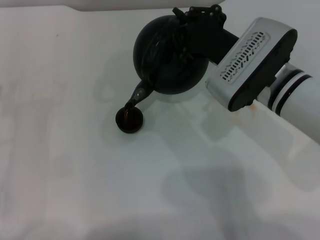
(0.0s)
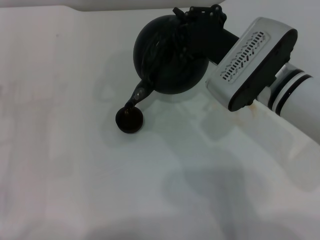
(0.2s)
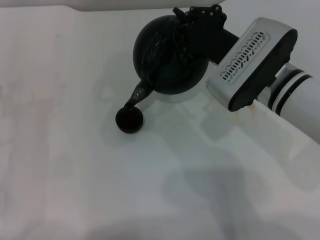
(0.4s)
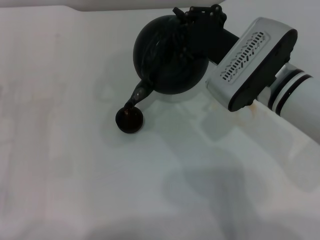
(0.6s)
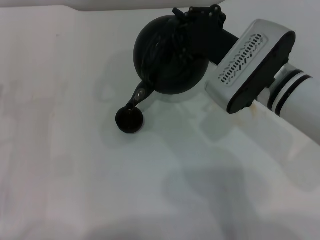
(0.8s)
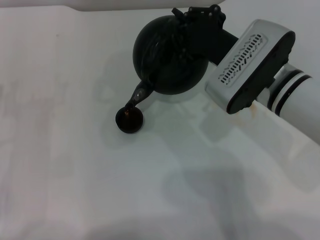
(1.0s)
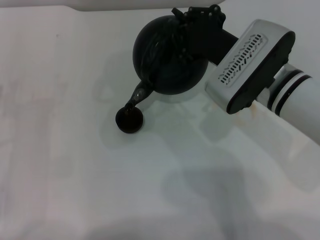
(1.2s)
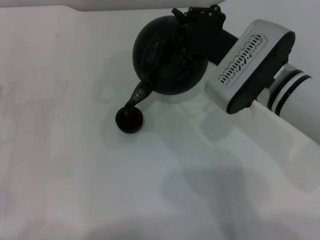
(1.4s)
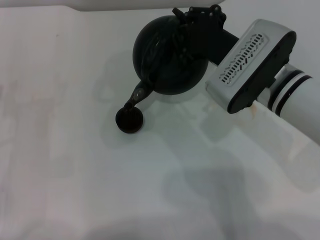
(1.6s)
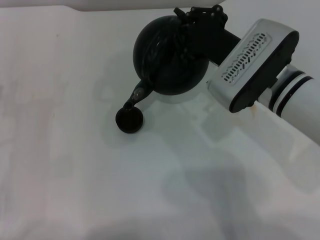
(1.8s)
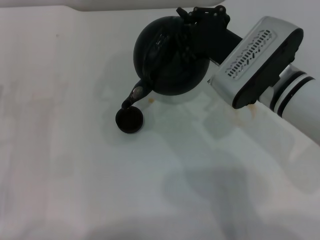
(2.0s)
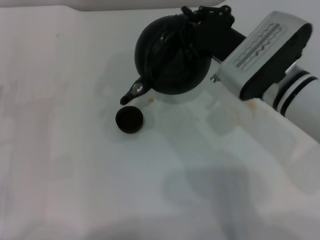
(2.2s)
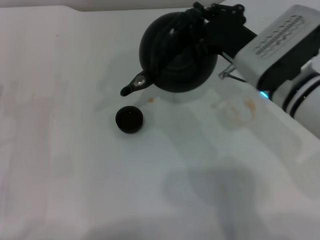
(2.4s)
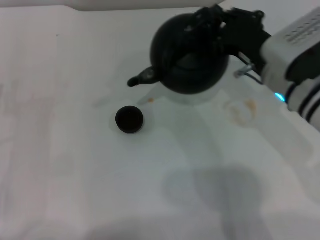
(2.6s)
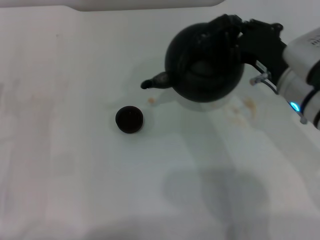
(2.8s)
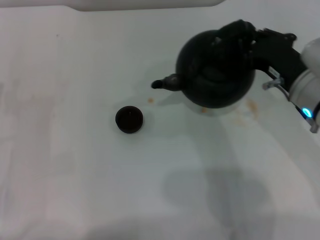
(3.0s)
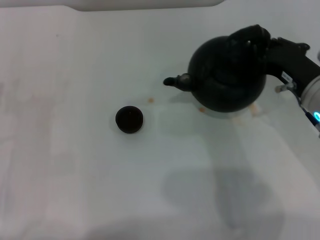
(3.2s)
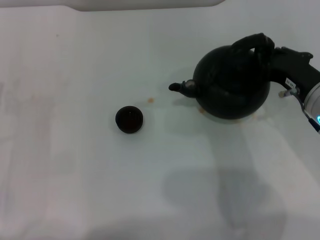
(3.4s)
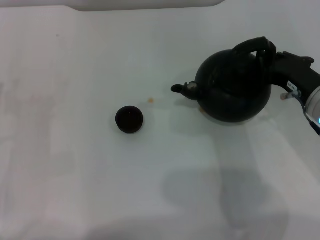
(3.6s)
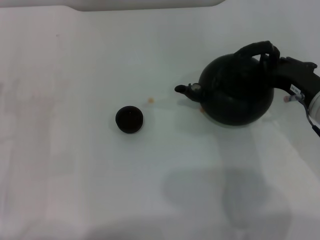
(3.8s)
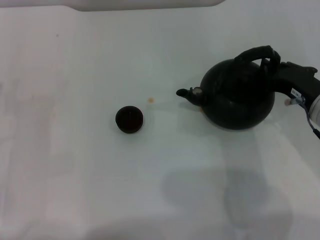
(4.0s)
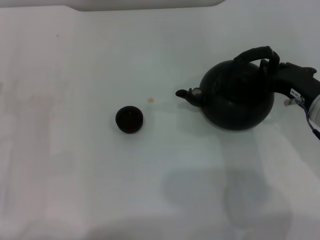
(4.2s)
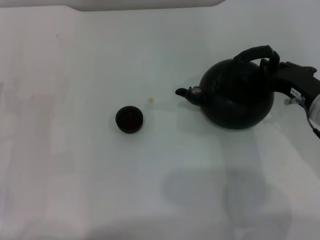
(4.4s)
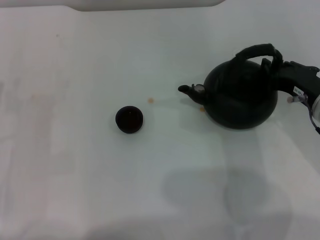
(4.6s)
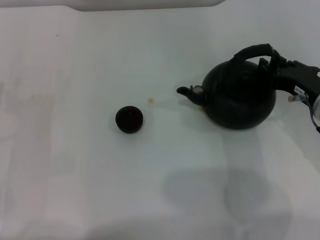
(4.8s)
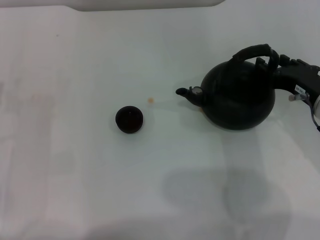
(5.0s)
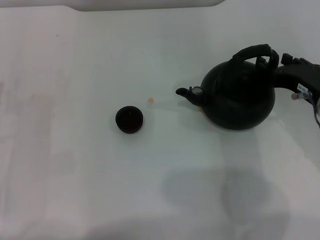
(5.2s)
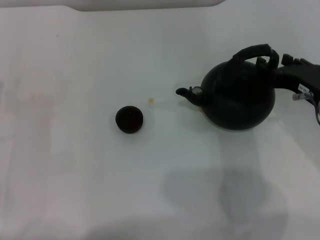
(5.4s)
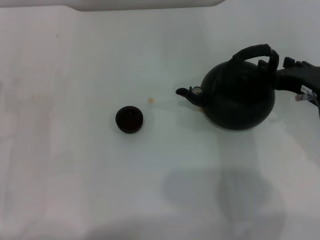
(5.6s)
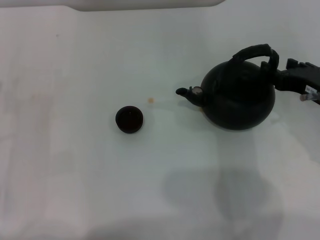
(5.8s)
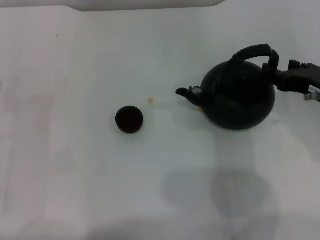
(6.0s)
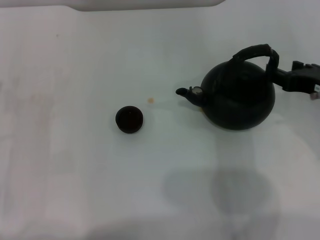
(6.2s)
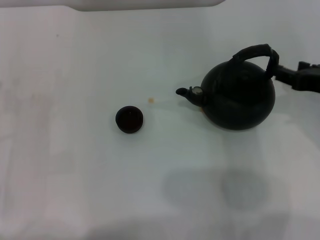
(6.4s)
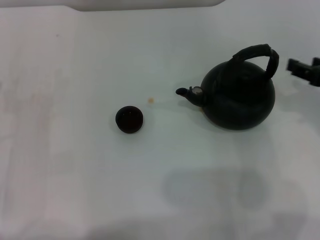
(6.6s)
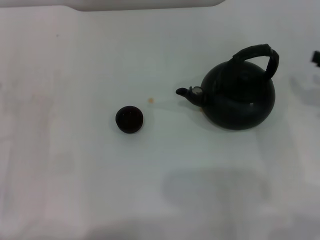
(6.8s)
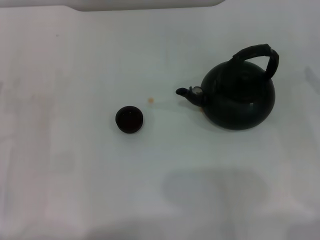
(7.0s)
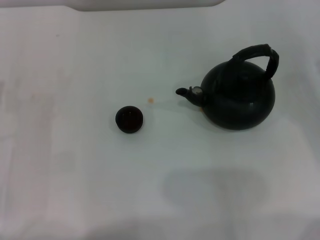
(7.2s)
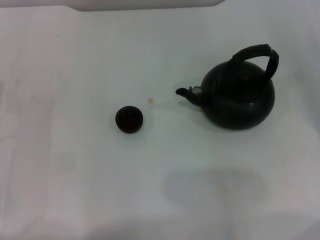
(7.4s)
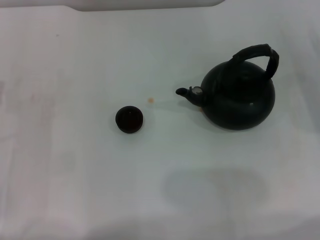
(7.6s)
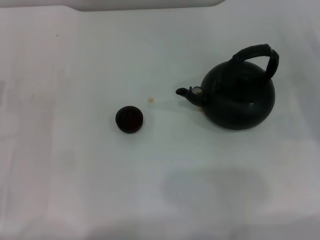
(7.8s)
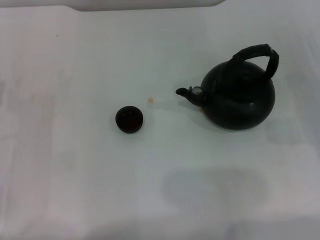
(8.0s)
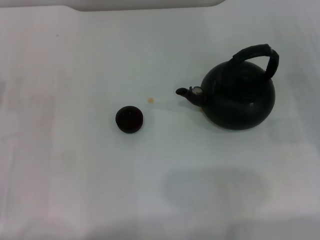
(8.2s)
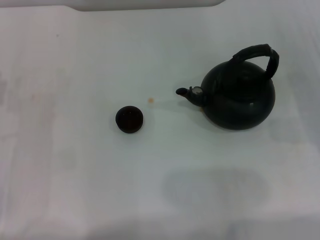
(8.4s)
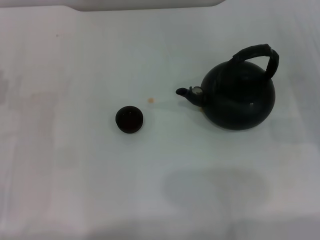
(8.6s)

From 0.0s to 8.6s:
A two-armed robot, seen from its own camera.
Task of the whole recording: Grasp the handle of the teapot with one hand and pour tea into the teacup.
Step, from 0.0s to 2.2s: Pour tea into the teacup with the right gripper.
Step, from 2.4s to 6.0s: Put down the teapot with the right gripper.
From 0.0s to 1.4s: Both grippers stay put.
From 1.4s to 2.8s: The right gripper shifts approximately 5 cm to the right.
From 2.8s to 4.4s: The right gripper moves approximately 5 cm.
From 4.4s to 5.8s: The right gripper opens its fingers.
From 5.8s to 7.2s: The right gripper heads to the right, covering approximately 15 cm.

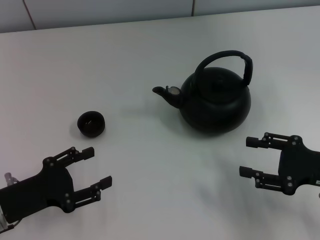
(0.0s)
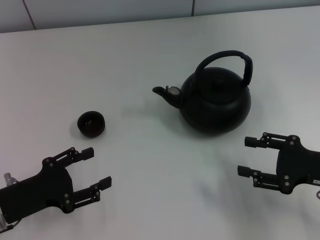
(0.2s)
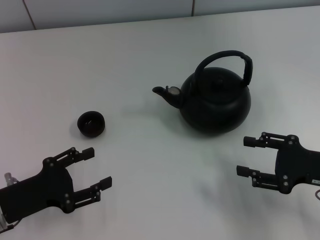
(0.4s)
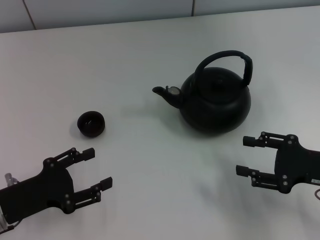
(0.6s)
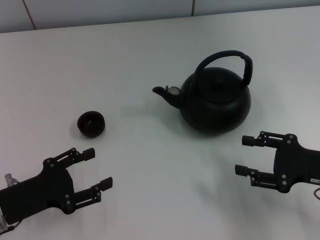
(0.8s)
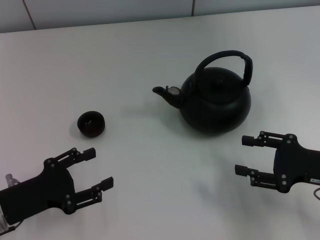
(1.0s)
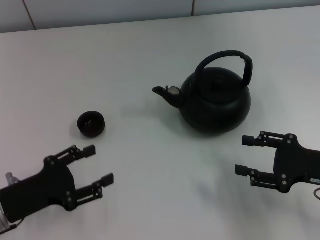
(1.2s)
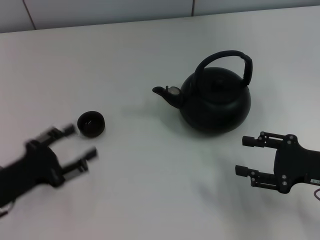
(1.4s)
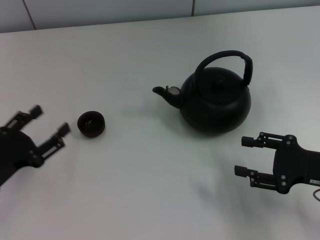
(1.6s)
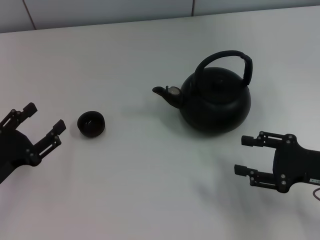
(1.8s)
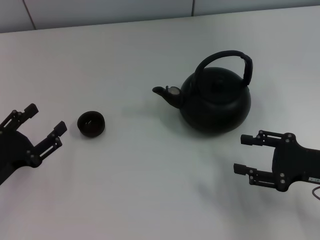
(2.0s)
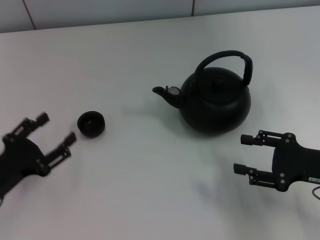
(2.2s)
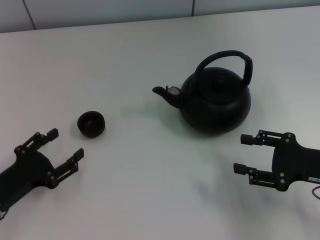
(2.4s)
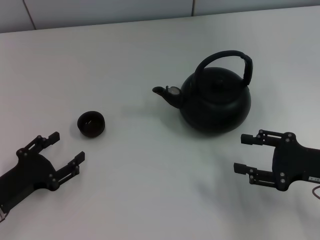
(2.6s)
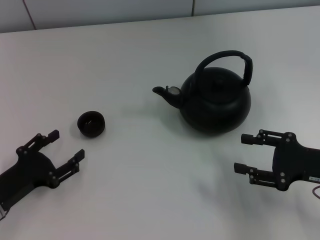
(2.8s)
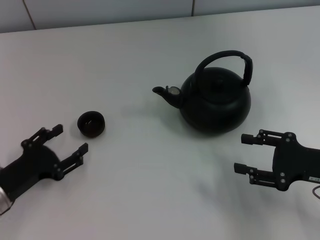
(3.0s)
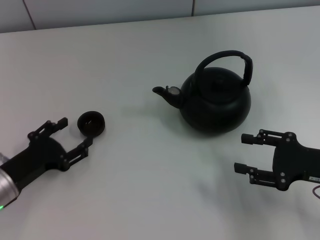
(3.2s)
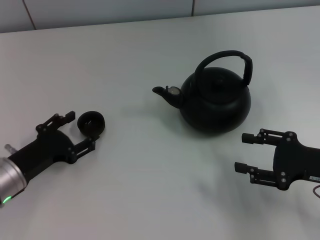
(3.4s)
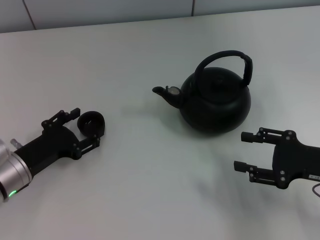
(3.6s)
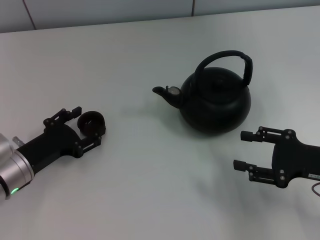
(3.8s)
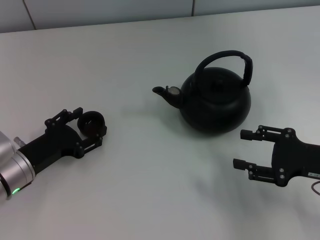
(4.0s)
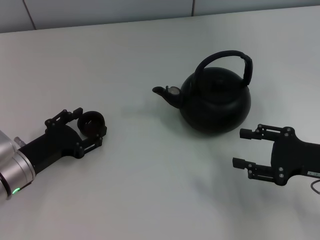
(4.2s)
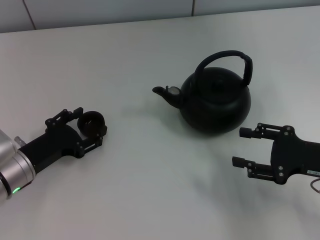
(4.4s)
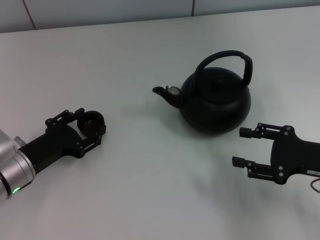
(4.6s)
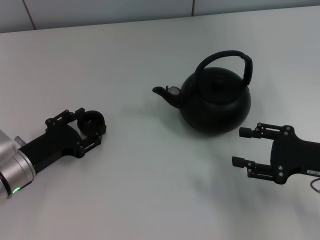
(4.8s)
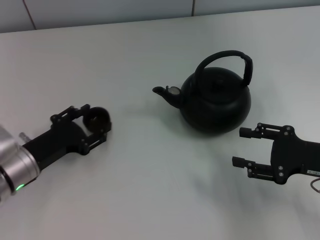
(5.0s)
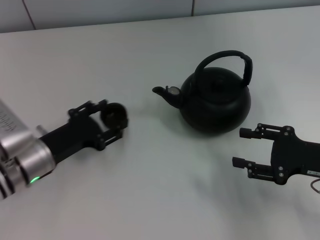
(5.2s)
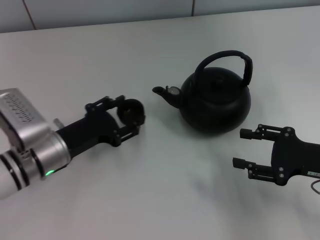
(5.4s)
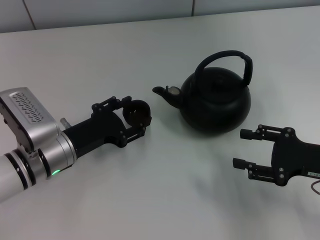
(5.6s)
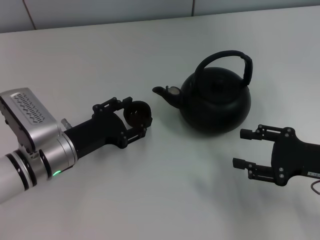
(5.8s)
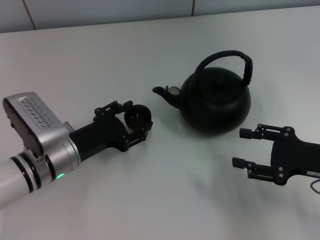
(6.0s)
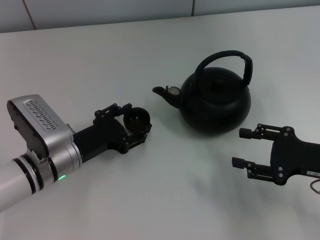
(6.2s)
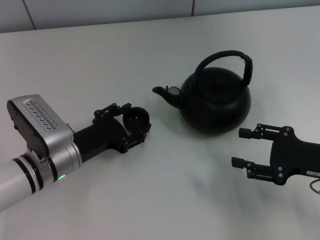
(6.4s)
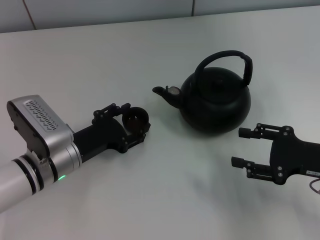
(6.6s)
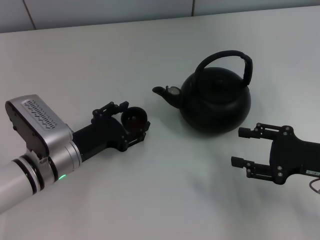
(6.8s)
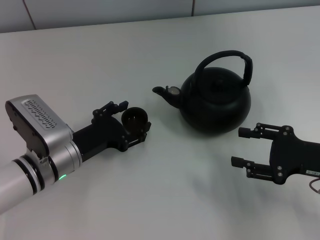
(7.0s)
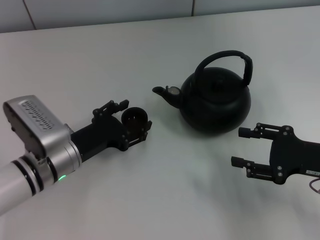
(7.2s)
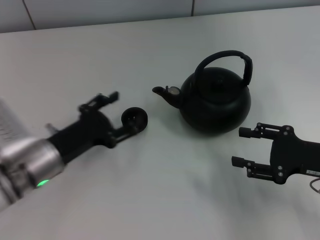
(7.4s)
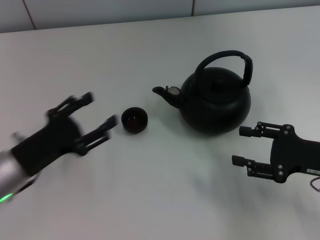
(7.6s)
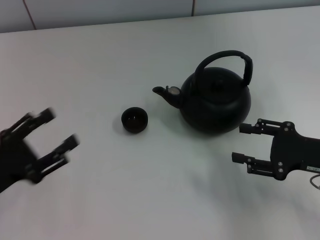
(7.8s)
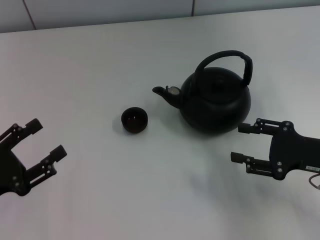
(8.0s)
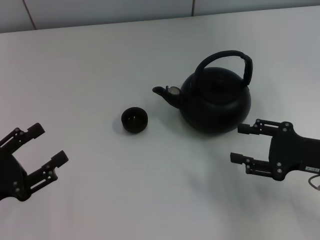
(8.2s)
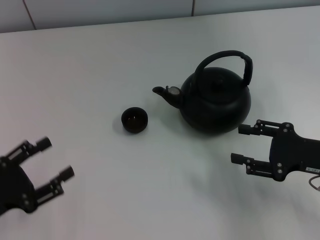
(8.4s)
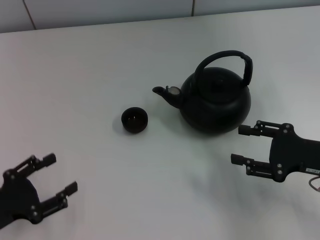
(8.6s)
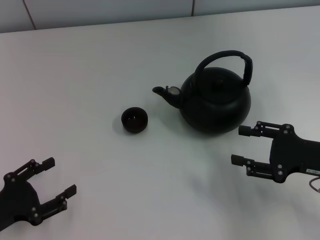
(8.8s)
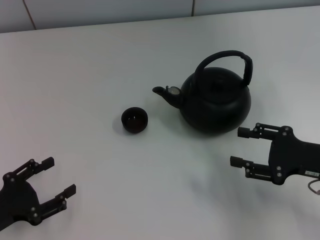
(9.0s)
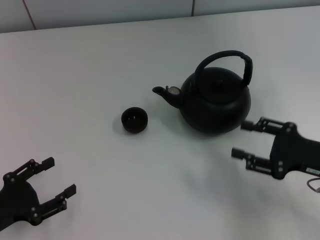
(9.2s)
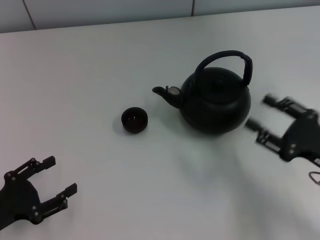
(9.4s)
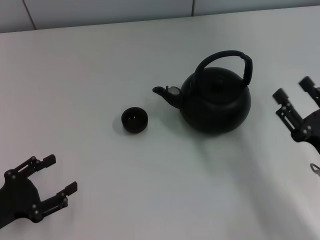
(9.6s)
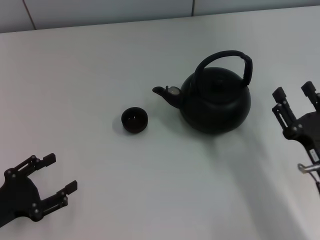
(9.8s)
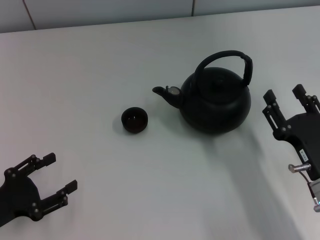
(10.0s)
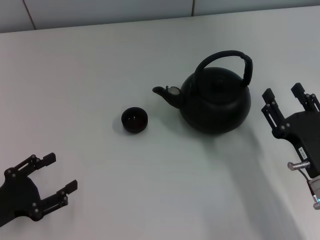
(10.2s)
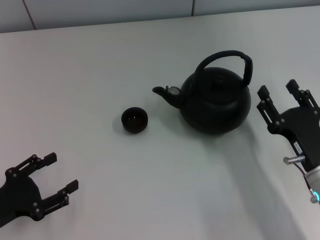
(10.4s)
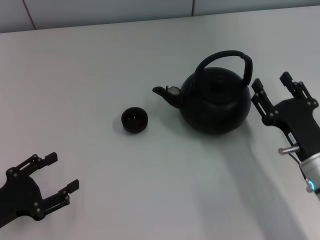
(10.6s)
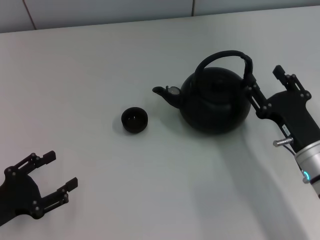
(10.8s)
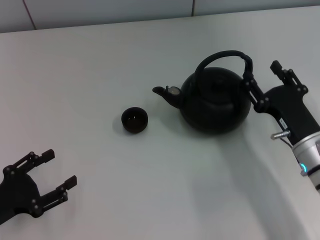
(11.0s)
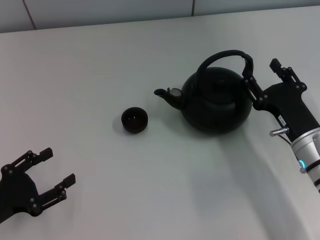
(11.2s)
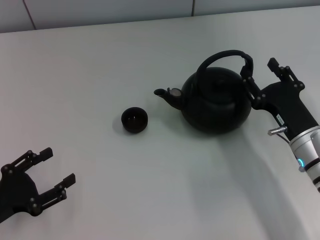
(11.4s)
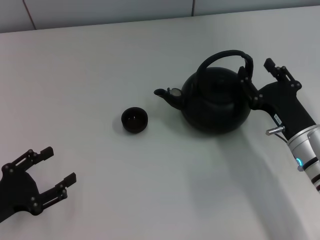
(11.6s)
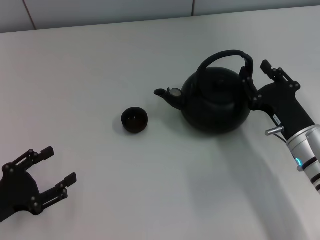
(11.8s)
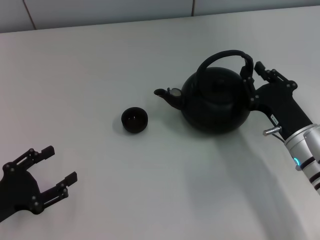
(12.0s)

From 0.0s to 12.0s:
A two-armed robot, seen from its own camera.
Task of the whole recording: Grasp the handle of the teapot with one hand and pour tea into the teacup.
Step, from 0.0s to 5.4s: Pick up the teacup with the left gripper.
Step, from 5.6s to 7.6s: Place the teacup in the center of view with the left gripper.
From 1.6s to 3.0s: The grippers move only a little.
From 3.0s to 4.4s: The left gripper changes place by approximately 5 cm.
From 4.4s to 6.0s: The left gripper travels to the right by approximately 5 cm.
From 6.0s to 7.6s: The left gripper travels to the left by some 5 cm.
From 7.6s to 9.0s: The left gripper shifts approximately 10 cm backward and to the left.
From 9.0s to 10.4s: The right gripper moves to the left, roughly 5 cm.
From 10.4s to 12.0s: The right gripper moves forward, roughly 5 cm.

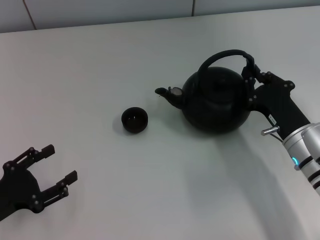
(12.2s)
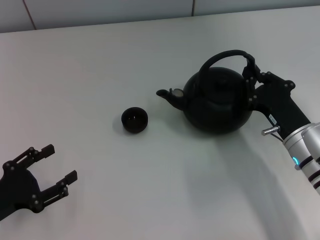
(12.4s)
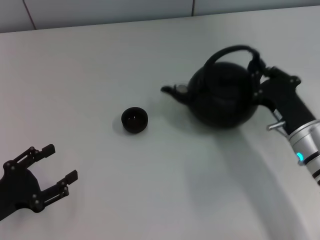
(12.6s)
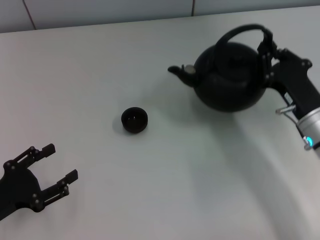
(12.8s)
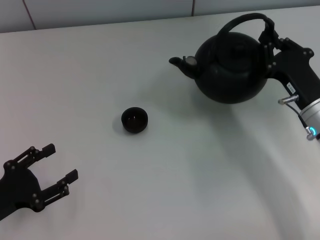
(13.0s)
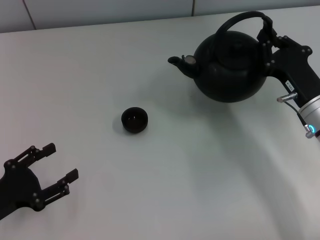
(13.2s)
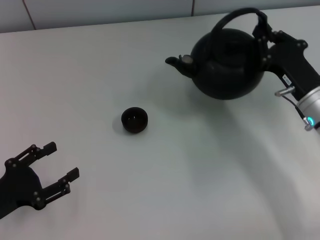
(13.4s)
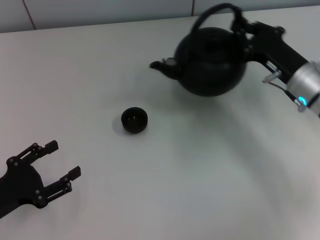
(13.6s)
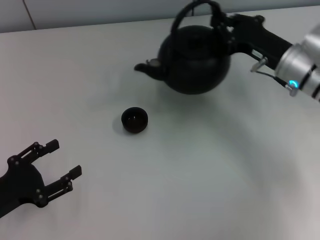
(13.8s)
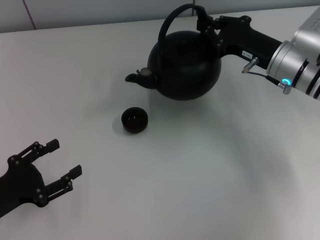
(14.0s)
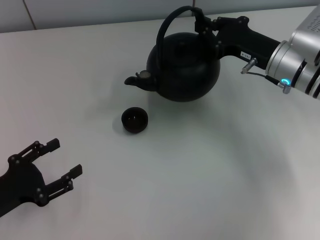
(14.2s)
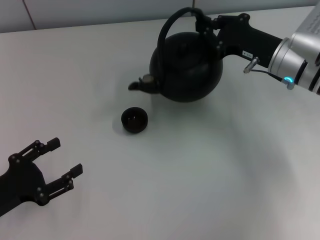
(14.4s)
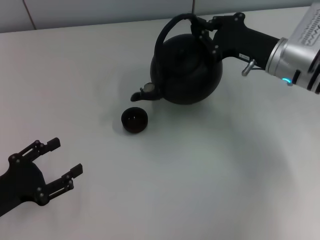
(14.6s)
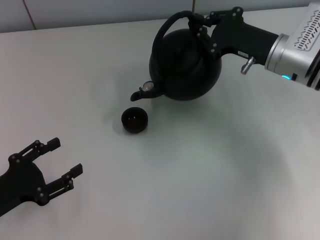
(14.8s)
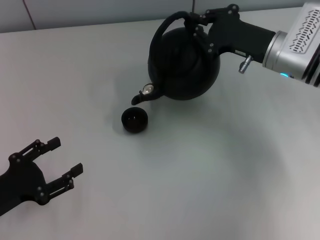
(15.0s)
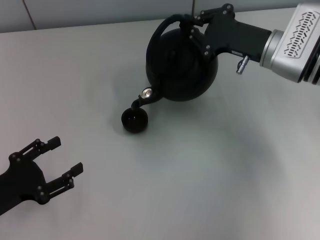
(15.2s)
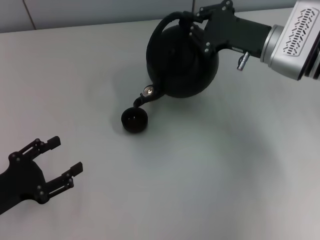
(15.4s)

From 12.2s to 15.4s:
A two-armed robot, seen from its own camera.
Task of the whole recording: Grasp the handle of the teapot with one hand and pour tea into the teacup.
From 12.2s to 13.8s: The right gripper is displaced forward and upward by about 15 cm, and closes its fingers.
